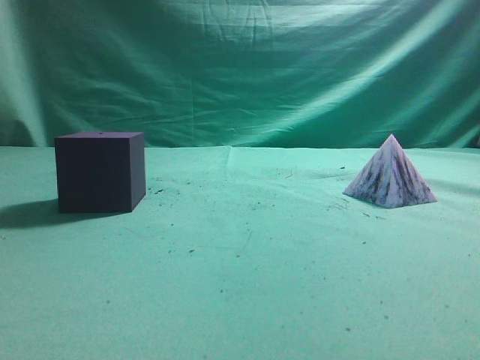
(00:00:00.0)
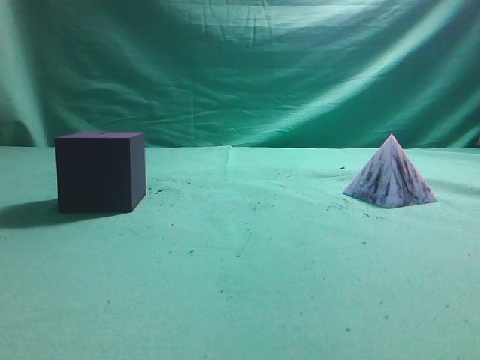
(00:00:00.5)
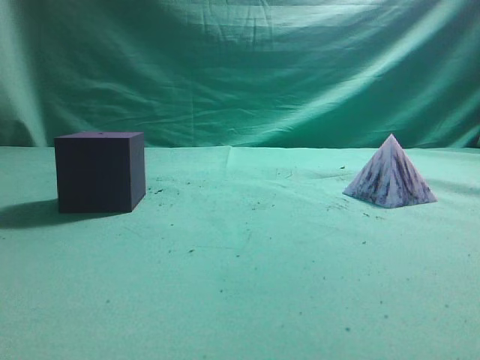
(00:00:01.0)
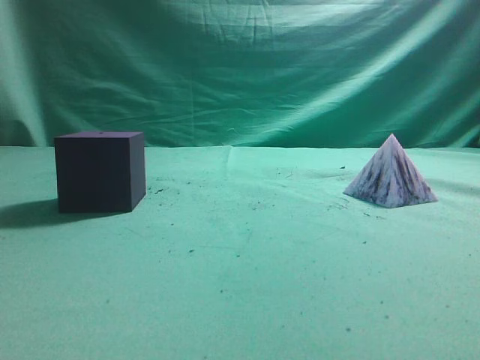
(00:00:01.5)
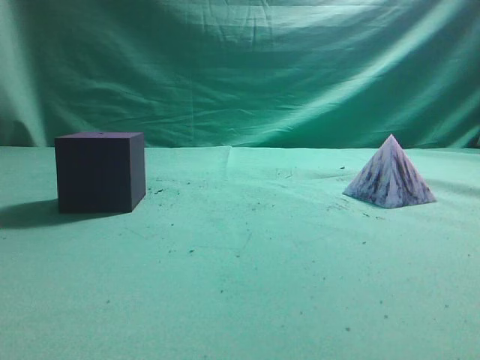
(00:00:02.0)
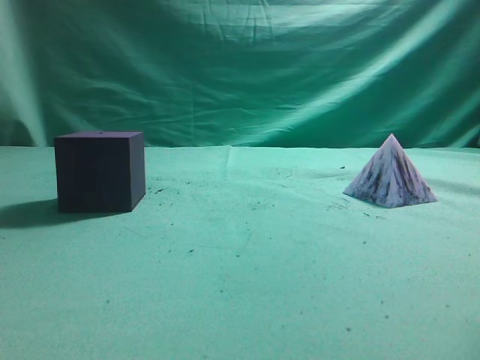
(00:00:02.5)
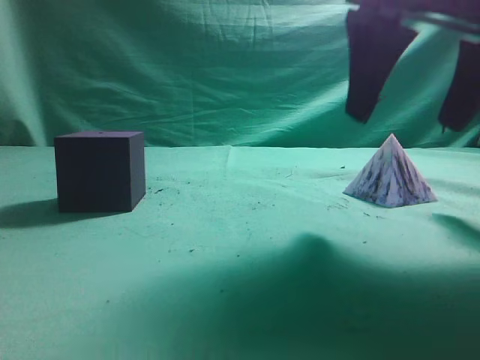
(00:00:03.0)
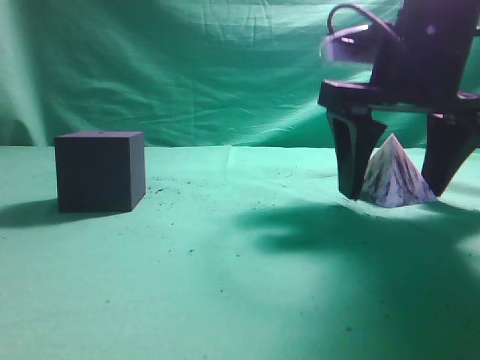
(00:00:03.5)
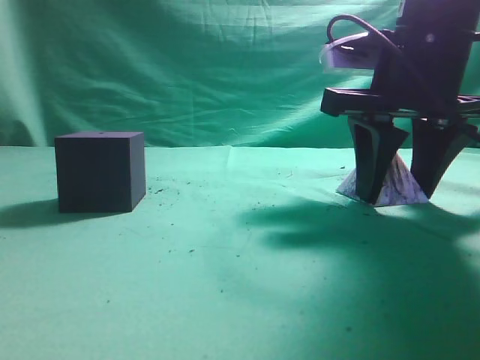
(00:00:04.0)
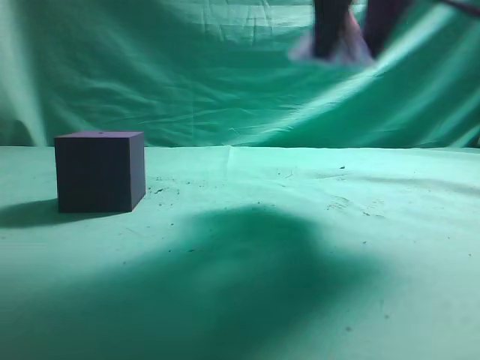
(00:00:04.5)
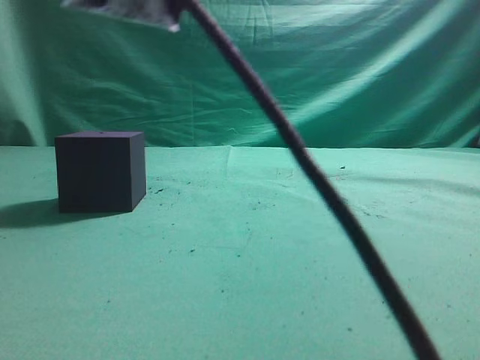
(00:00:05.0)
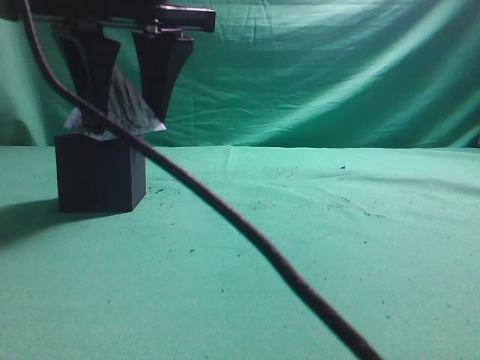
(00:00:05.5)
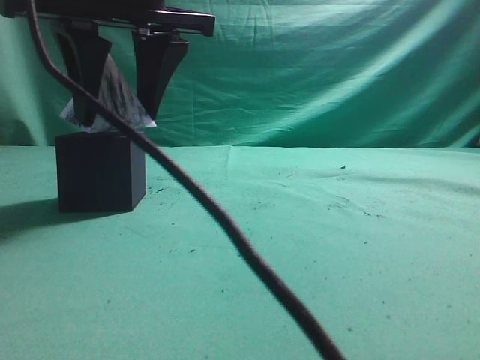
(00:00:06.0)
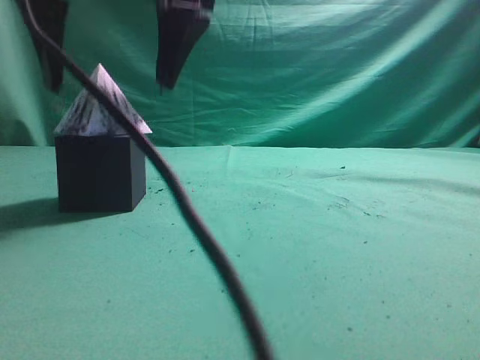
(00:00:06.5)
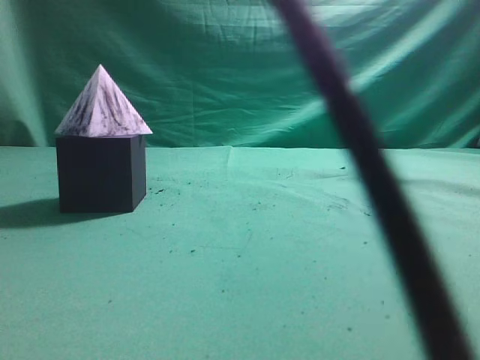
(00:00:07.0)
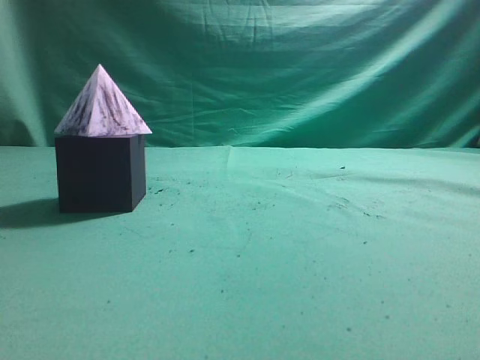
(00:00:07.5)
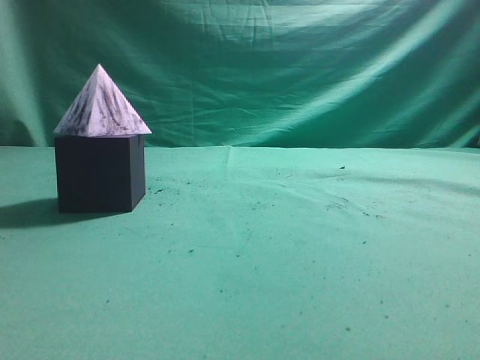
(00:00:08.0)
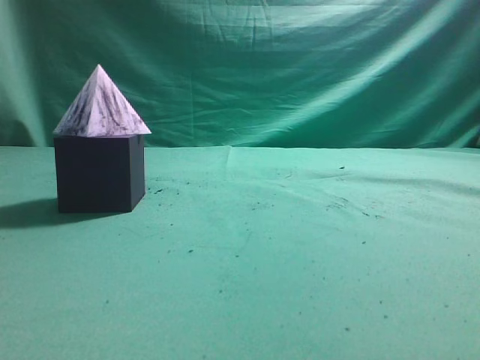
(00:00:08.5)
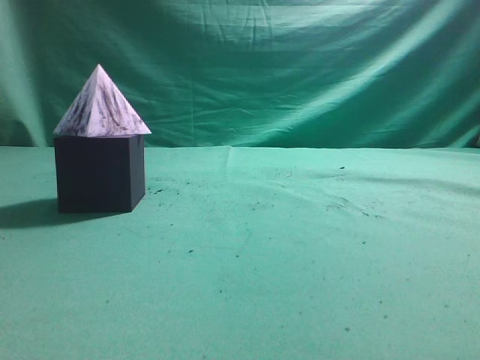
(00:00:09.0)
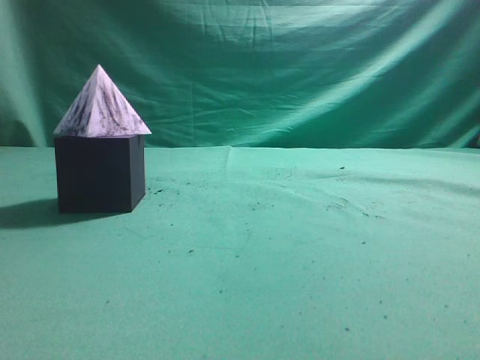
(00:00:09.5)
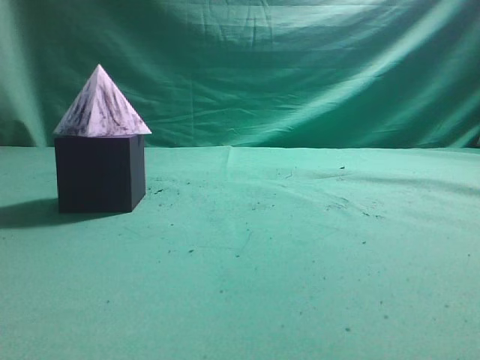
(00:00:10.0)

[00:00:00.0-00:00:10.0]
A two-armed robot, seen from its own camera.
Task of the whole recording: pick up the square pyramid from the table and place it on the cube block.
Step, 00:00:00.0 to 00:00:04.0: Grasp the triangular block.
Step, 00:00:04.5 to 00:00:06.5: Place the block onto the cube-shaped block.
00:00:02.0 to 00:00:04.0: The right gripper moves forward, downward and to the left, about 30 cm, and opens its fingers.
00:00:04.0 to 00:00:06.0: The right gripper goes approximately 20 cm to the left.
00:00:06.0 to 00:00:08.0: The right gripper travels to the right, backward and upward by approximately 35 cm, and closes up.
